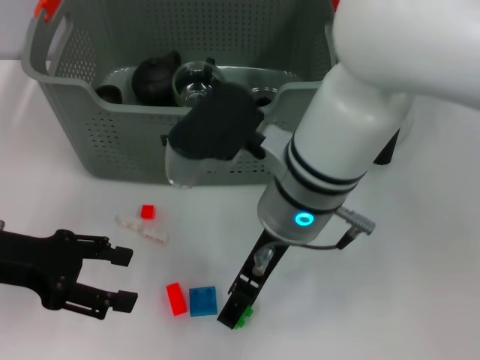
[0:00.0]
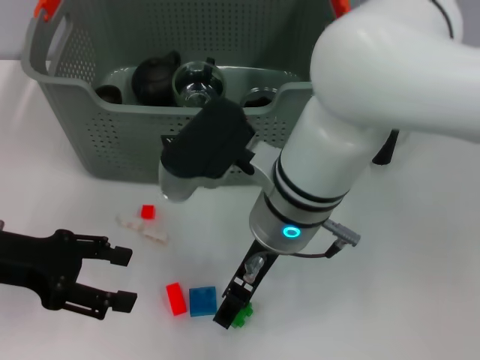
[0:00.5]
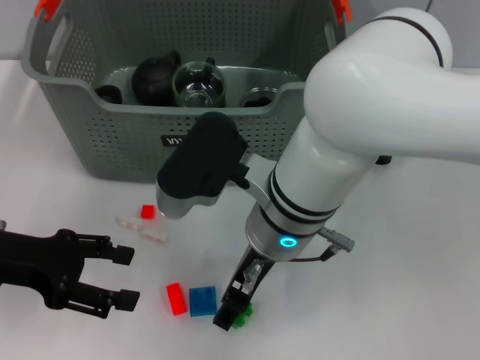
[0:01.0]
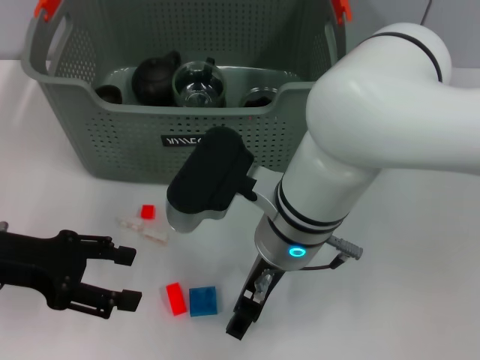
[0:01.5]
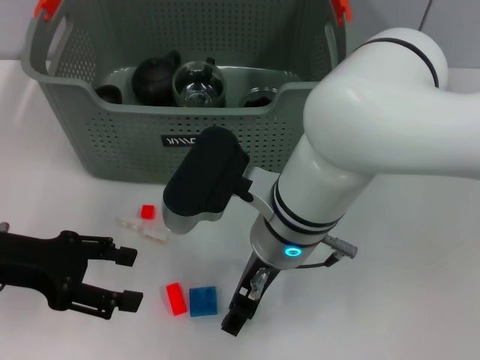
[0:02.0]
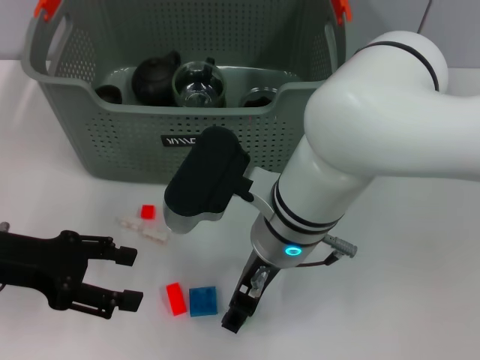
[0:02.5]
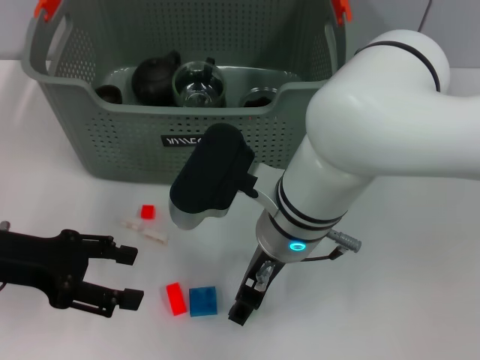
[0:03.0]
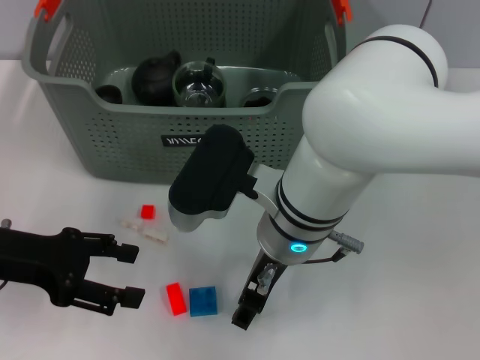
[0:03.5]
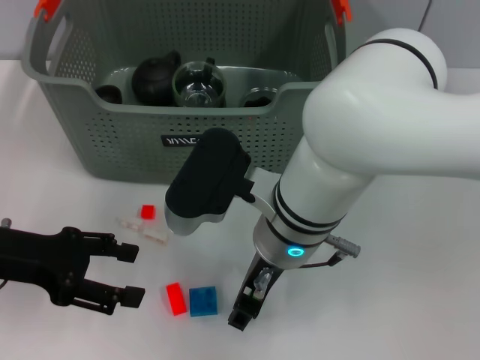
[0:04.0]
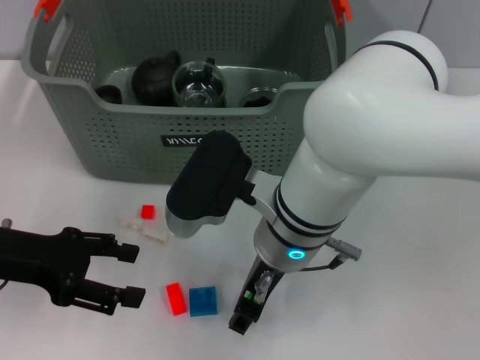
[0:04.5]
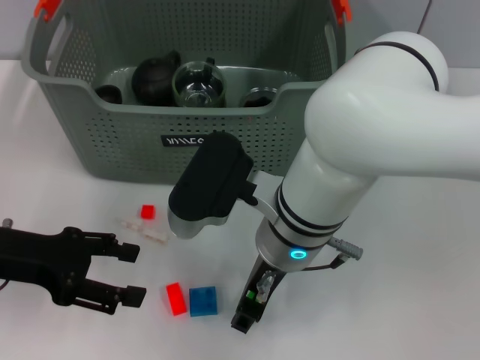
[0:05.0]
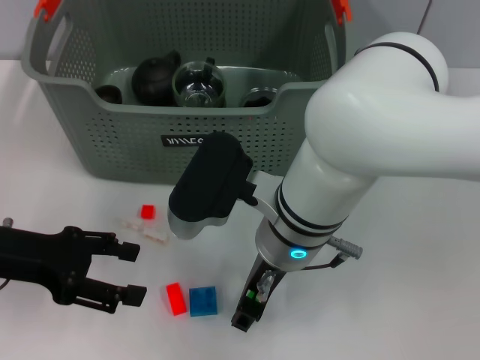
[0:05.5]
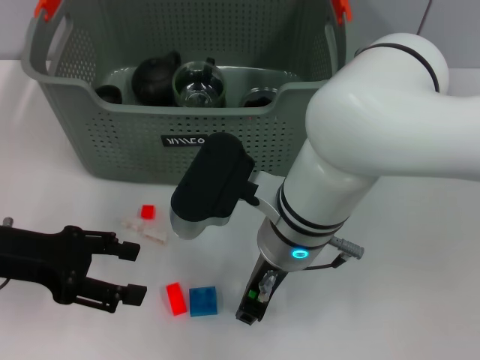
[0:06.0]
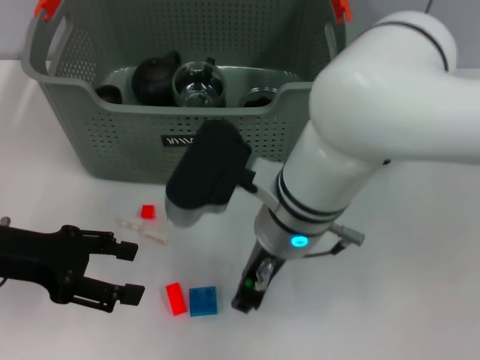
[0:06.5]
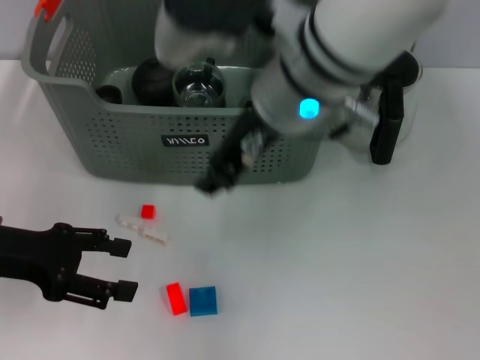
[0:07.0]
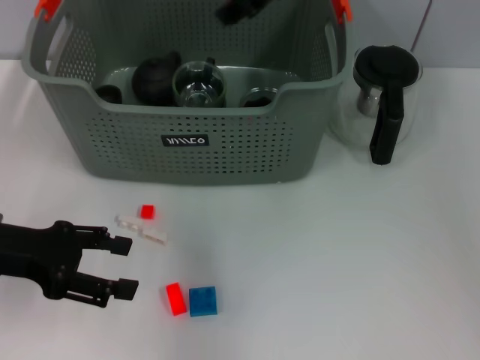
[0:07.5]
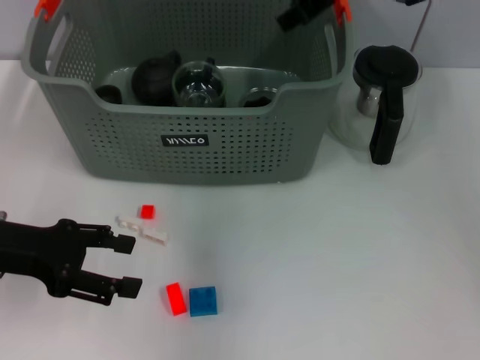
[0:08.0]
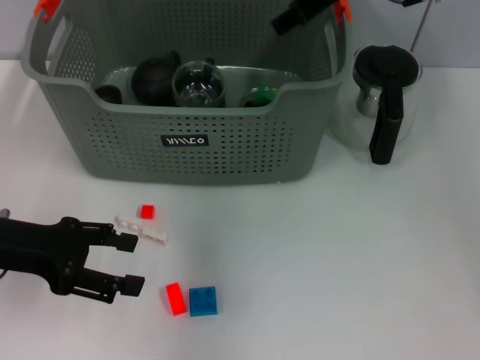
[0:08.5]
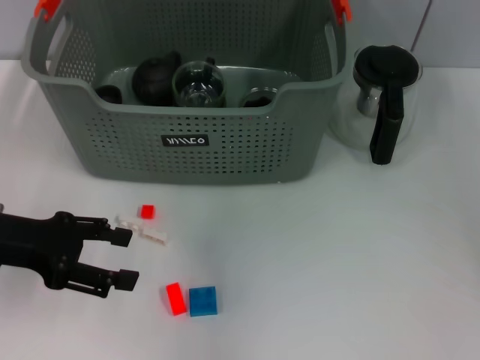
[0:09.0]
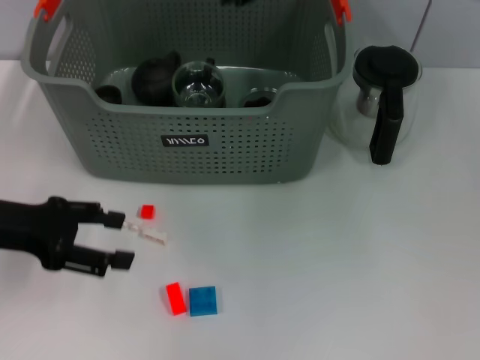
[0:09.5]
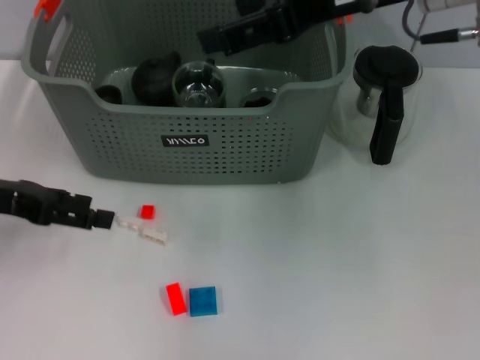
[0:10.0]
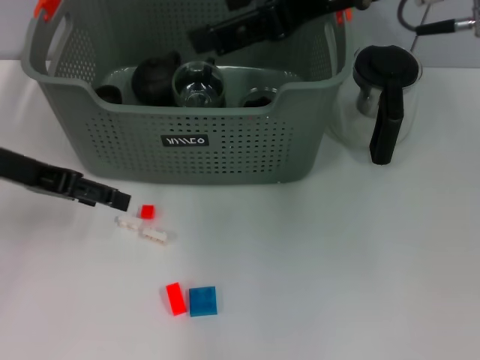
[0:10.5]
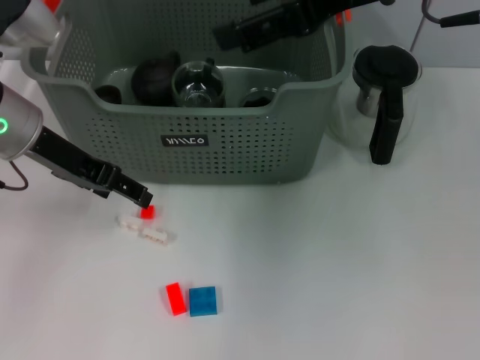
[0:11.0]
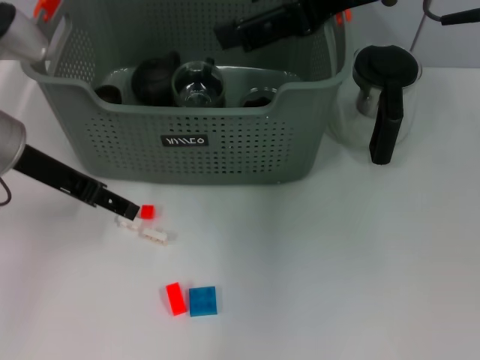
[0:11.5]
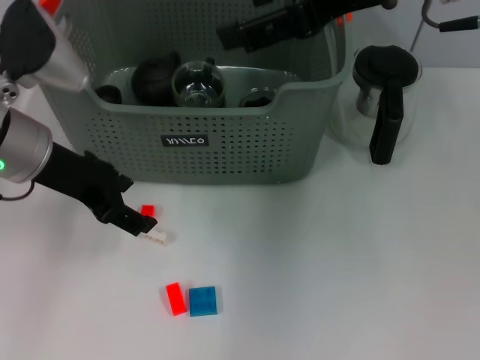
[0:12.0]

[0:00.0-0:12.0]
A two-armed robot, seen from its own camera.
Task of the whole recording: pick up the teacup on the table and place it into the storage bin, pick up the block on the table and place it into the storage bin.
Step, 0:00.0 to 0:06.0: Grasp the green block with right gripper.
Step, 0:07.0 to 0:08.5: Place the green block in the storage box with right gripper.
0:02.0 to 0:06.0: Both grippers stay put.
0:06.0 to 0:08.0: The right gripper shifts about 25 cm forward, upward and to the right.
0:08.0 to 0:10.0: The right gripper goes approximately 10 cm backward, and opens.
0:10.0 to 0:12.0: The left gripper moves to the right, about 10 cm.

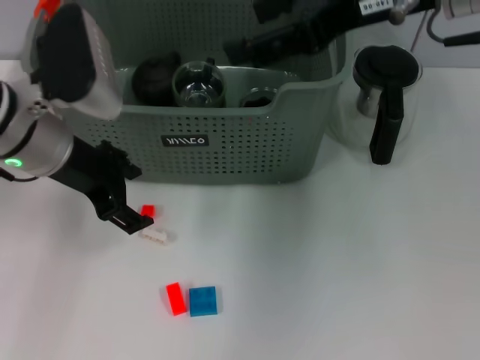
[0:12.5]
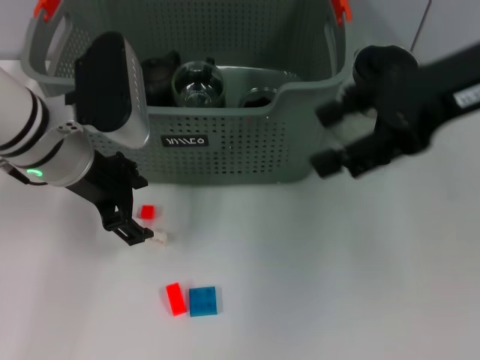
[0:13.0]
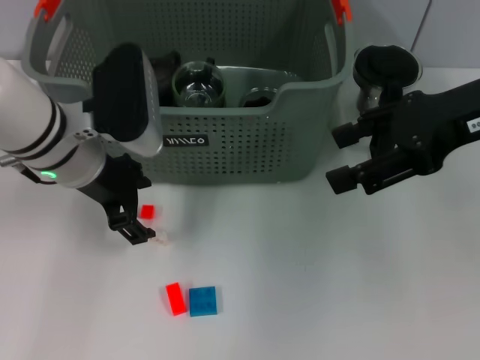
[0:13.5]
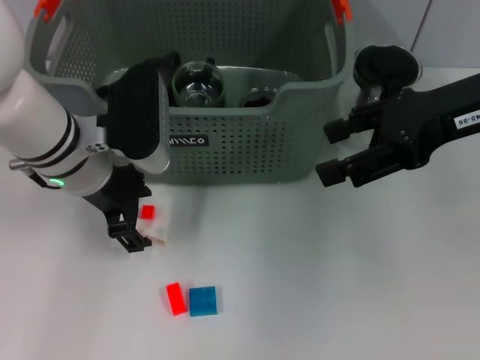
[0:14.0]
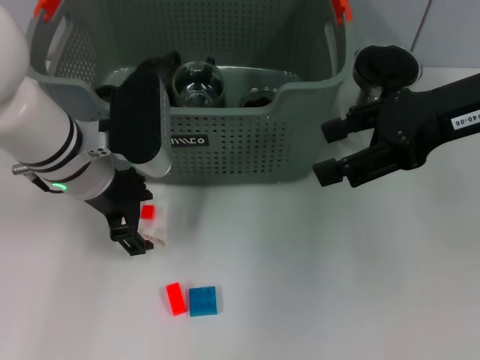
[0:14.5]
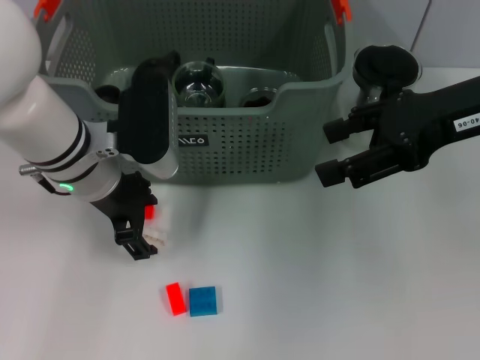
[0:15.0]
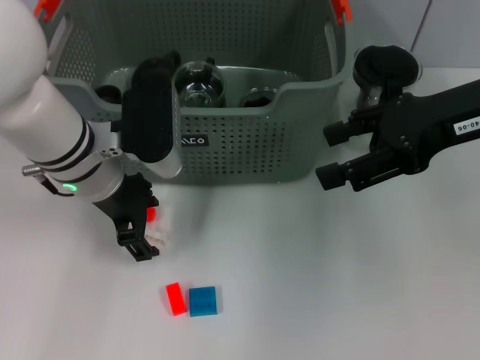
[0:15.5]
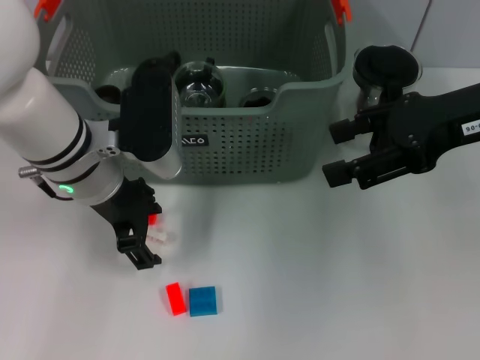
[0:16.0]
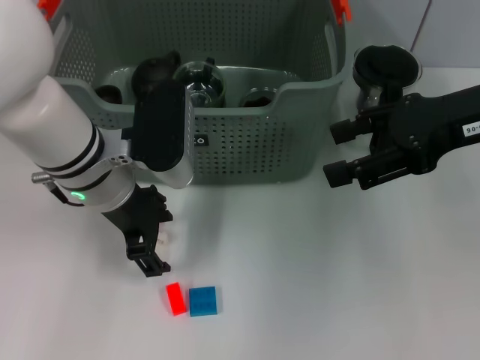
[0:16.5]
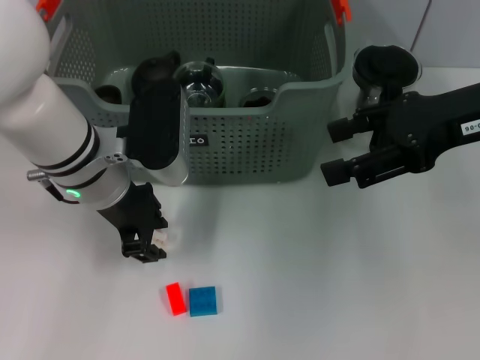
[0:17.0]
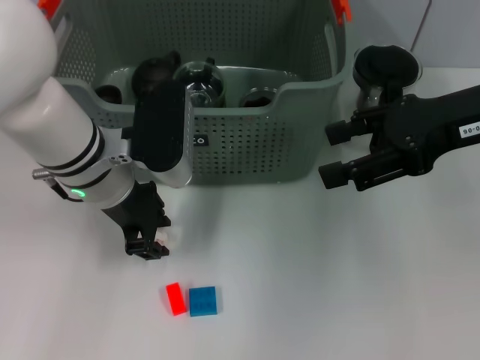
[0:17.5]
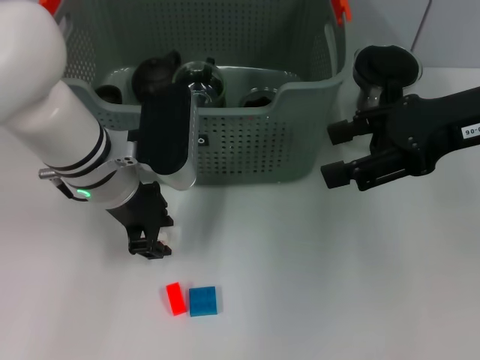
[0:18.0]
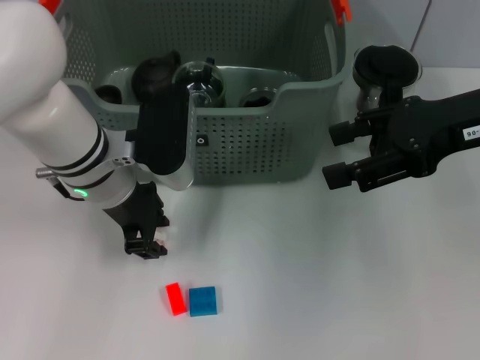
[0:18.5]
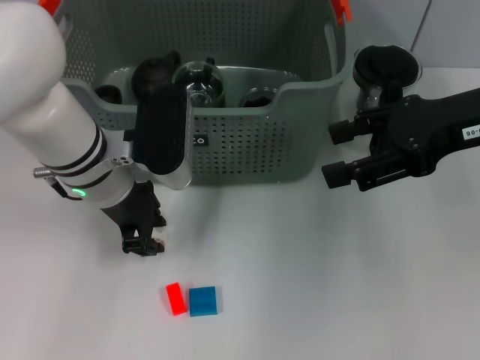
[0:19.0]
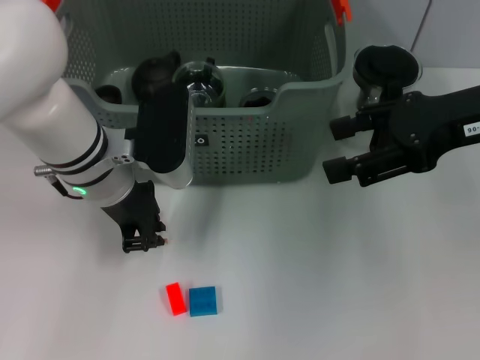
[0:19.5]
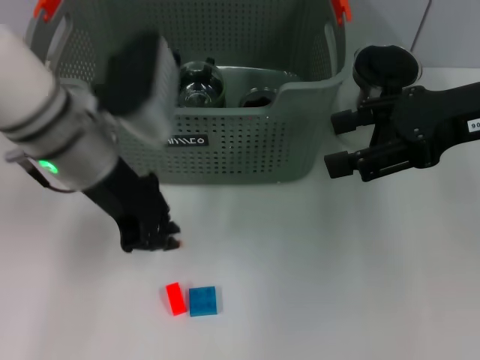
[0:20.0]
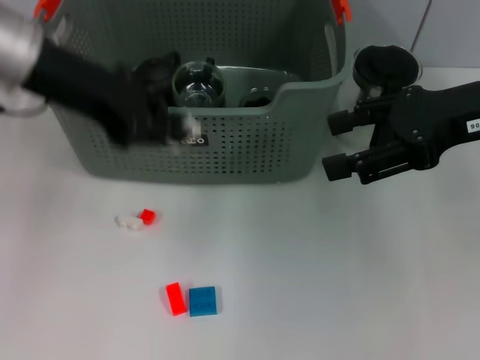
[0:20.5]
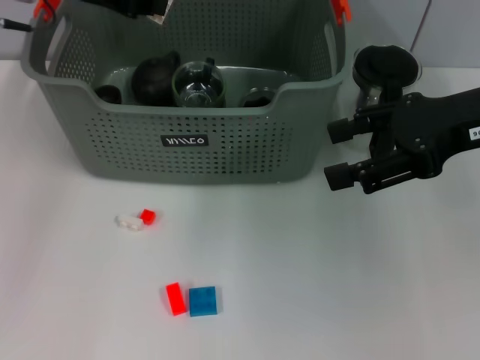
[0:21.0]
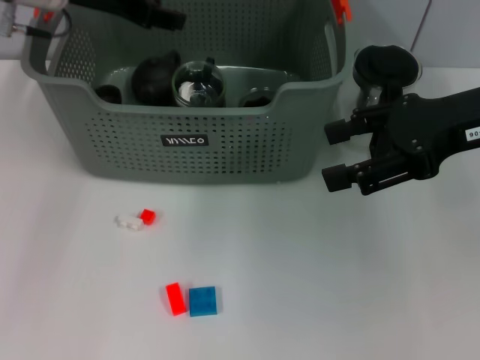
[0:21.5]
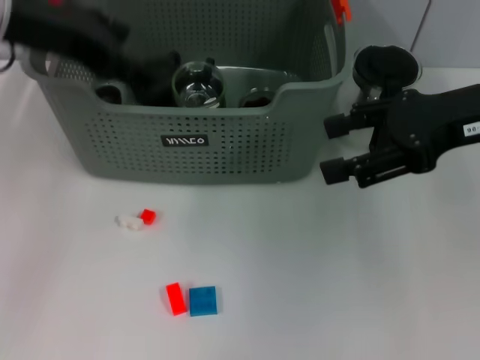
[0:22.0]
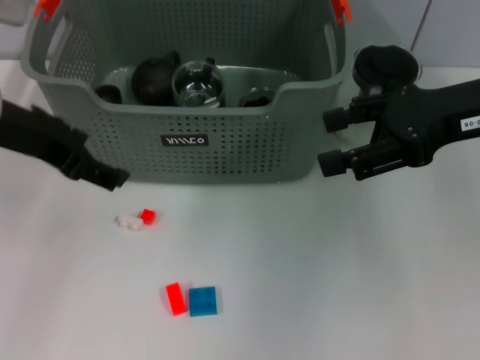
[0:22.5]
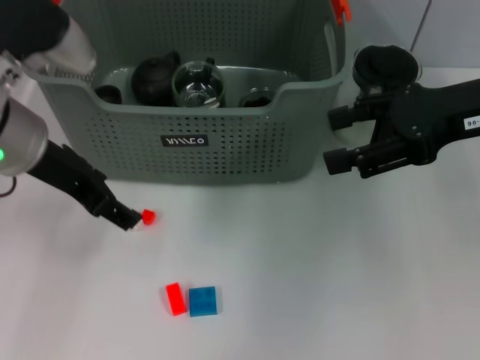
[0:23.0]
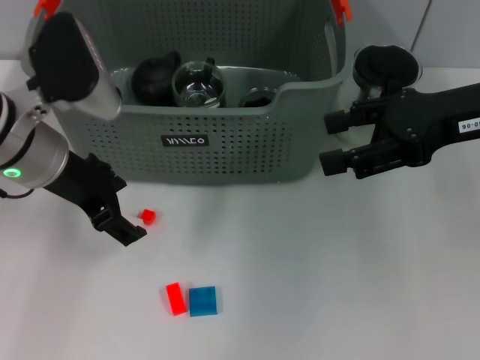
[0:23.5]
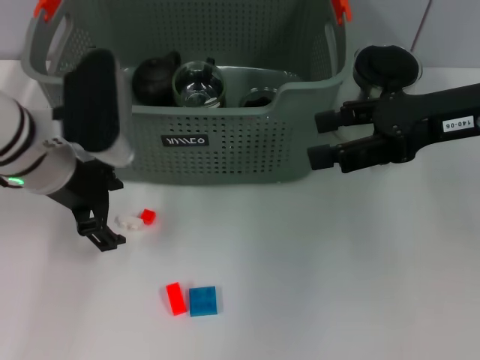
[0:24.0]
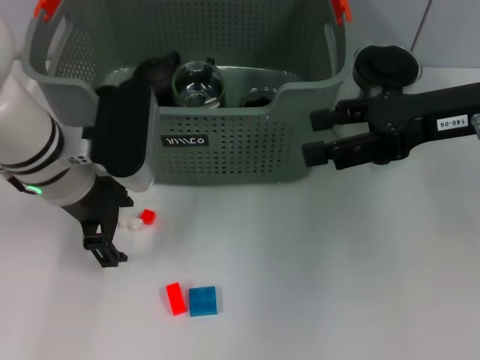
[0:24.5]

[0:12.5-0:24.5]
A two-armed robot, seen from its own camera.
Task of the whole recording: pick up the teacup on the table and place it into the storage bin, pick up the block on the table and place it into the storage bin.
Step, 0:12.5 to 0:19.5: Grasp the white block with left gripper.
Step, 0:20.5 to 0:21.5: Place the white block in the storage box with left gripper.
0:12.5 to 0:14.5: The right gripper moves to the right and downward, about 10 cm. The left gripper changes place by about 5 cm.
0:14.5 to 0:16.5: The grippers make only small movements.
0:16.5 to 0:18.5: The left gripper closes.
0:18.5 to 0:20.5: The left gripper travels upward and to the left by approximately 15 cm.
0:20.5 to 0:22.5: The left gripper reaches some 10 cm forward, then returns, and opens its fingers.
0:22.5 to 0:24.5: The left gripper moves downward and to the right, about 10 cm.

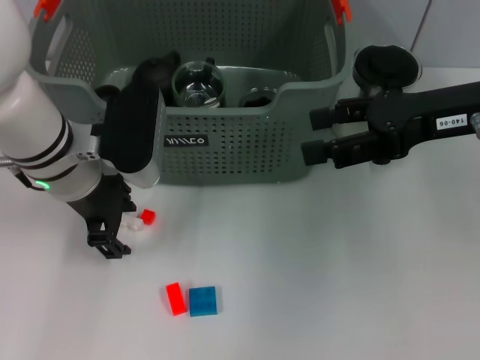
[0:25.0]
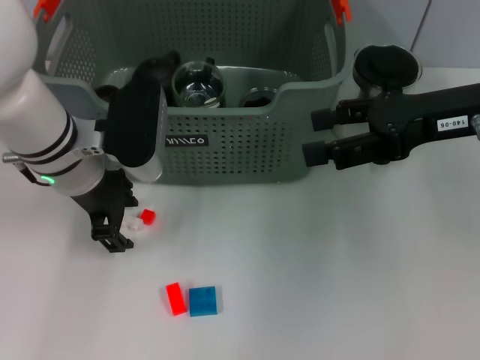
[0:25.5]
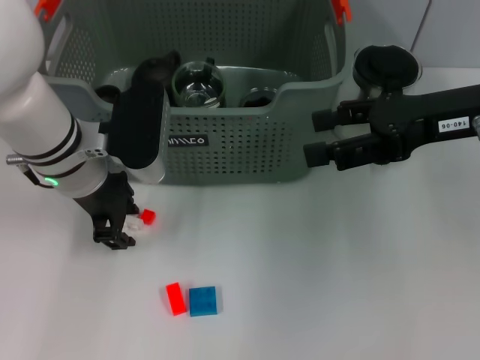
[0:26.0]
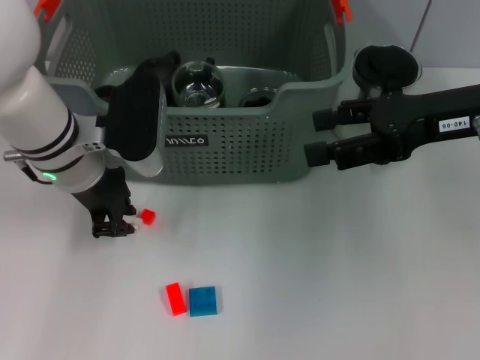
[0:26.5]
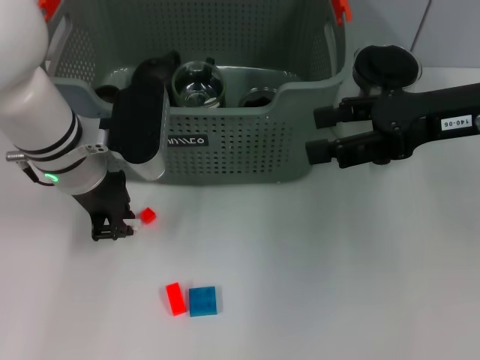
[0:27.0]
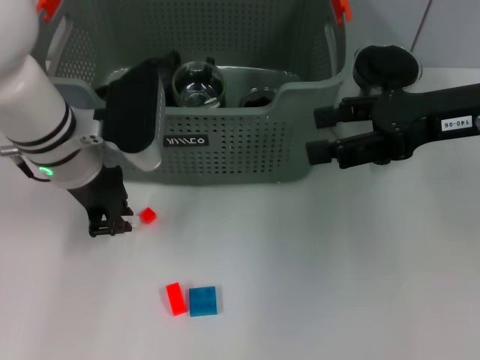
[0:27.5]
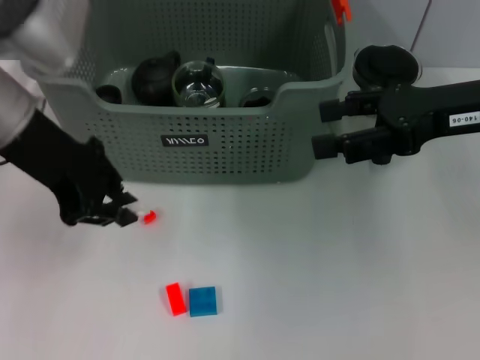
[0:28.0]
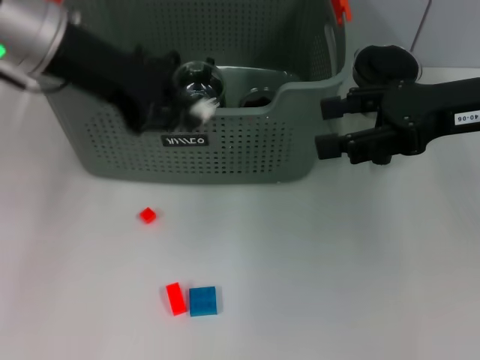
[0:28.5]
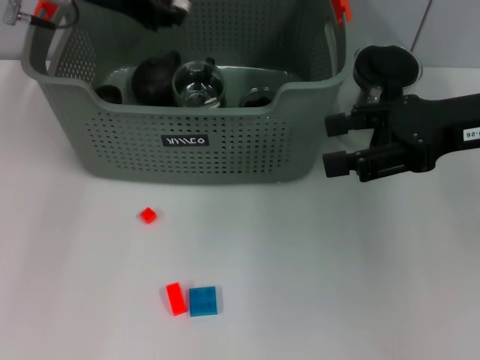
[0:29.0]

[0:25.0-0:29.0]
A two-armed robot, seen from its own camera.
Task of the whole recording: pick up the teacup on the table and place it into the storage bin, pick up the block on the table and place it into the storage bin.
Step, 0:25.0 to 0:27.5: Grasp the white block with left gripper.
0:25.0 to 0:27.0: The left gripper closes its fingers.
0:27.0 to 0:29.0: The left gripper shifts about 15 cm upward and forward.
